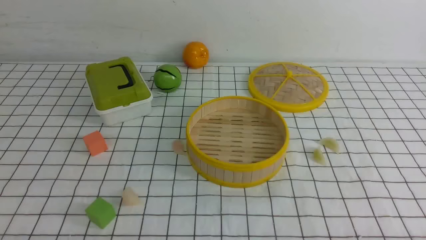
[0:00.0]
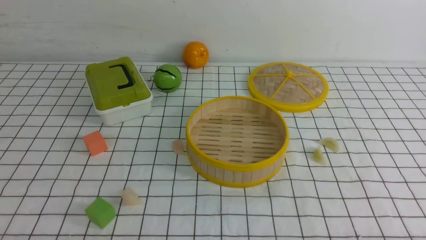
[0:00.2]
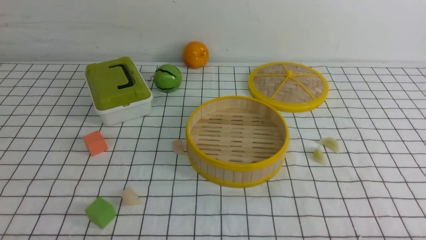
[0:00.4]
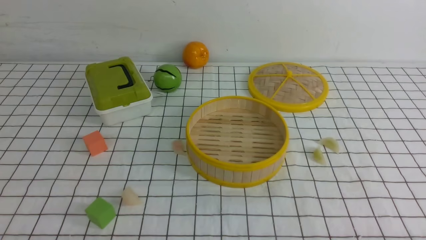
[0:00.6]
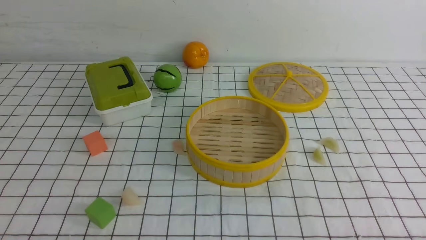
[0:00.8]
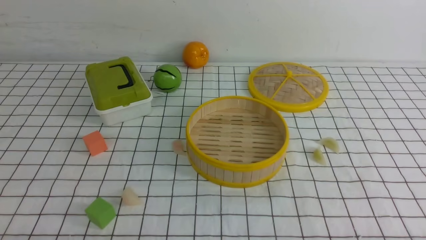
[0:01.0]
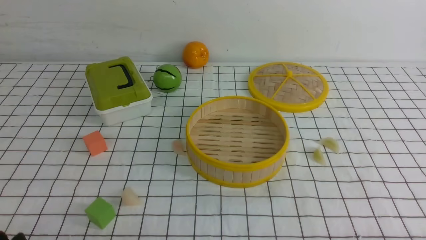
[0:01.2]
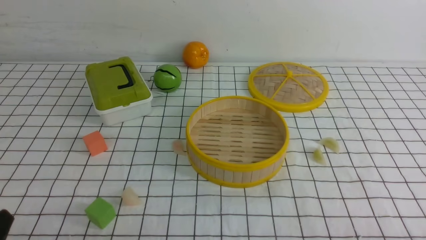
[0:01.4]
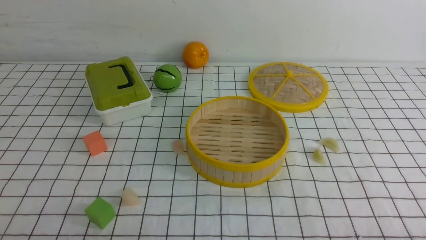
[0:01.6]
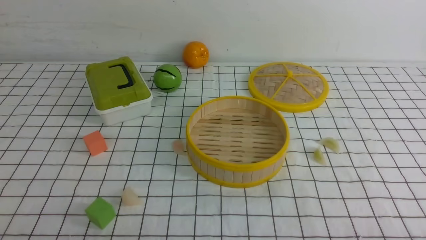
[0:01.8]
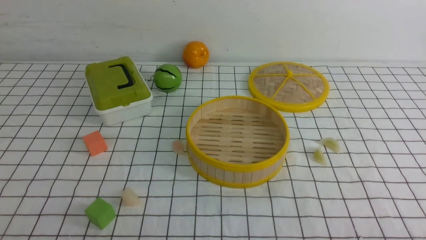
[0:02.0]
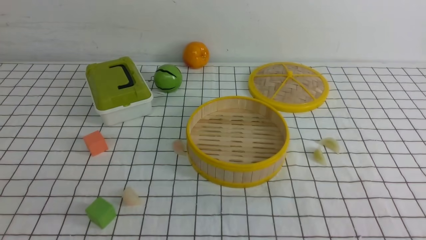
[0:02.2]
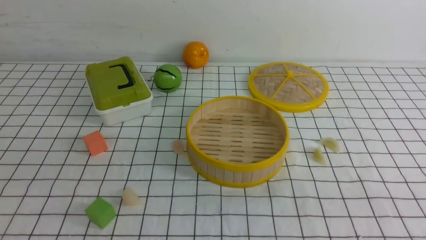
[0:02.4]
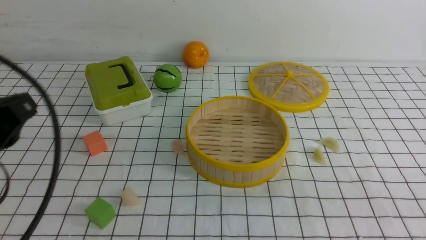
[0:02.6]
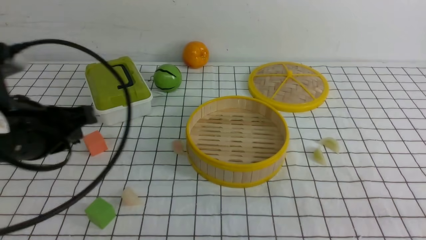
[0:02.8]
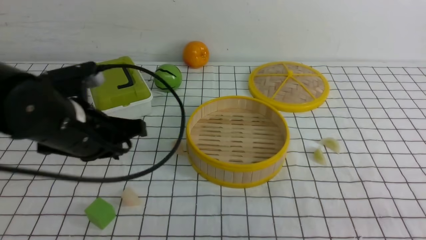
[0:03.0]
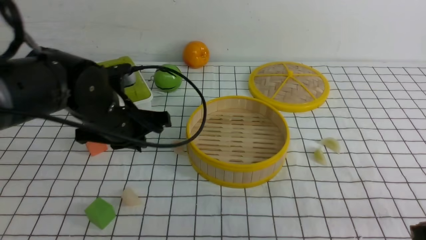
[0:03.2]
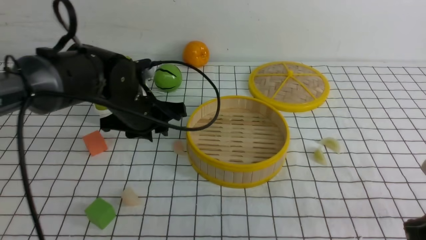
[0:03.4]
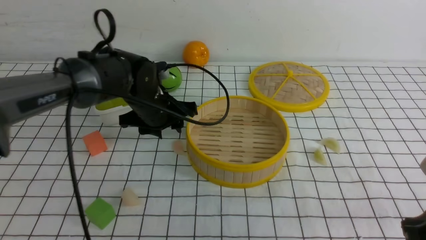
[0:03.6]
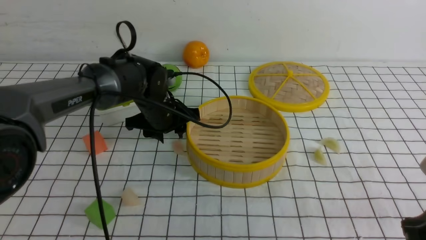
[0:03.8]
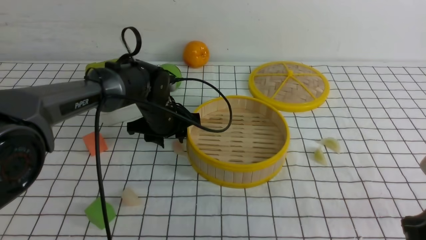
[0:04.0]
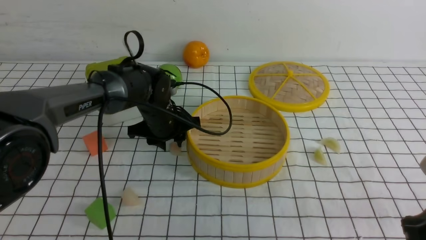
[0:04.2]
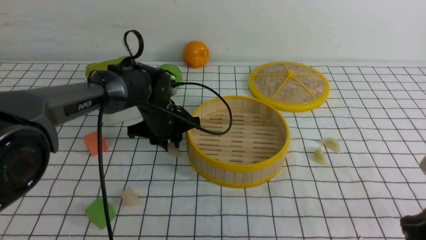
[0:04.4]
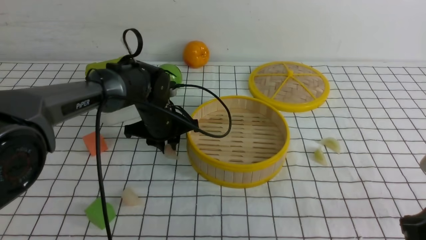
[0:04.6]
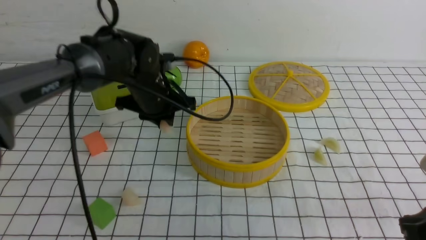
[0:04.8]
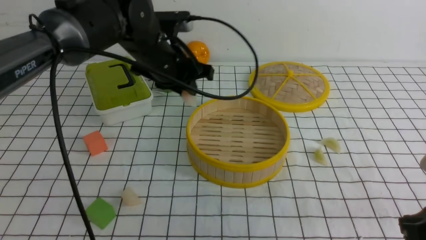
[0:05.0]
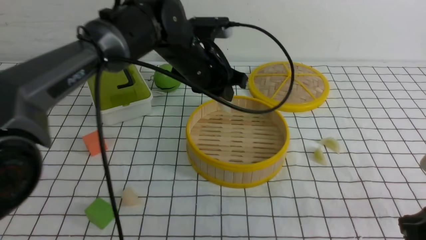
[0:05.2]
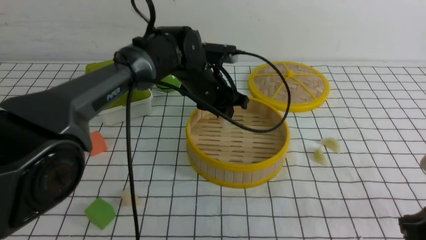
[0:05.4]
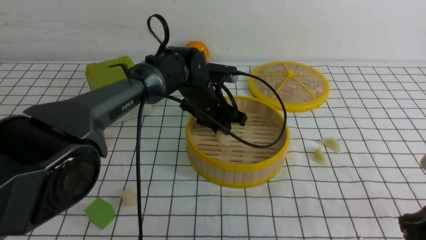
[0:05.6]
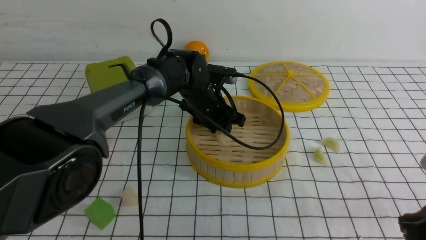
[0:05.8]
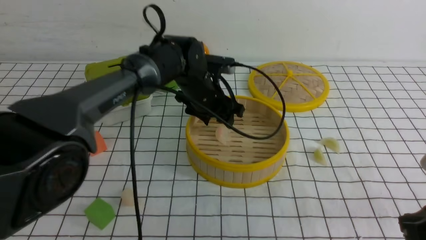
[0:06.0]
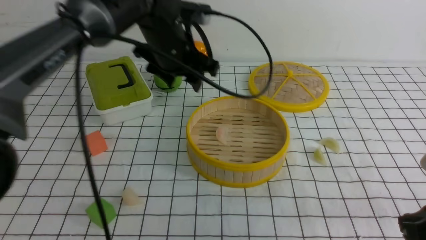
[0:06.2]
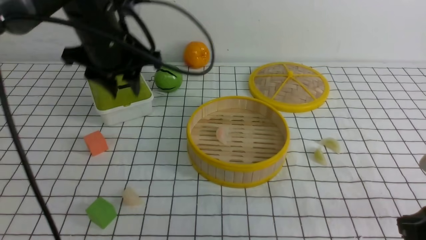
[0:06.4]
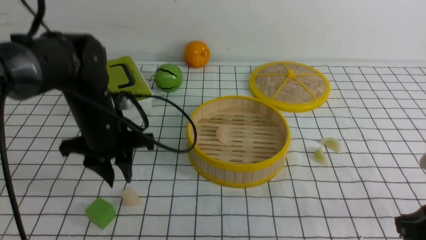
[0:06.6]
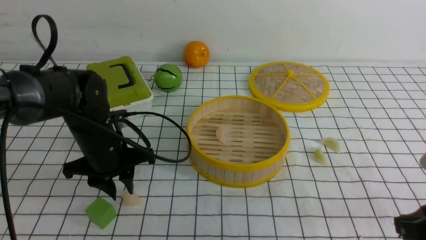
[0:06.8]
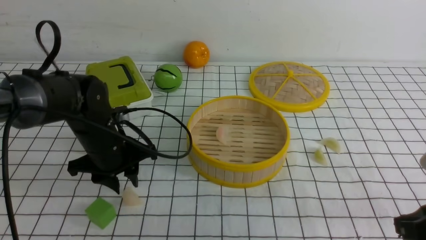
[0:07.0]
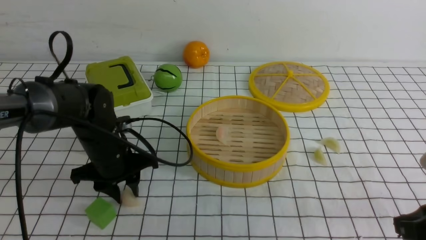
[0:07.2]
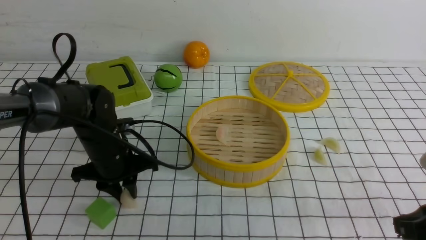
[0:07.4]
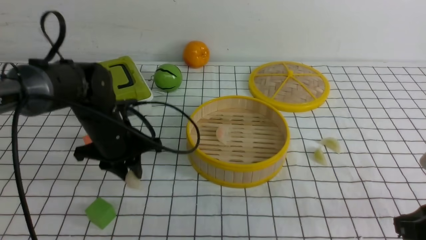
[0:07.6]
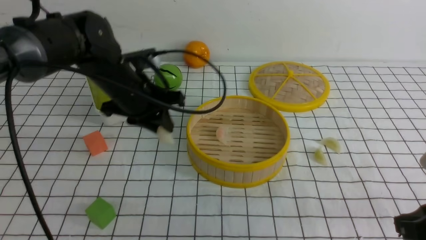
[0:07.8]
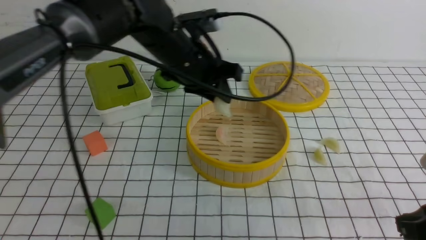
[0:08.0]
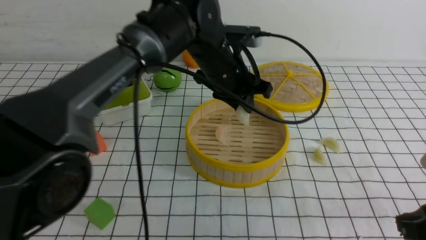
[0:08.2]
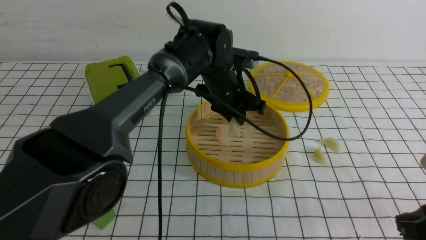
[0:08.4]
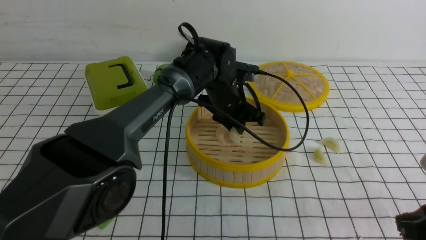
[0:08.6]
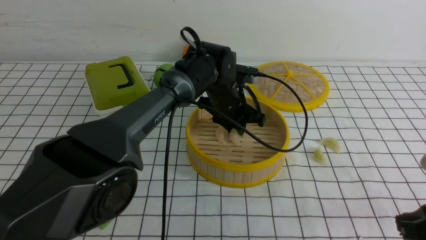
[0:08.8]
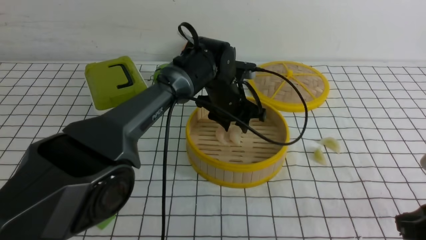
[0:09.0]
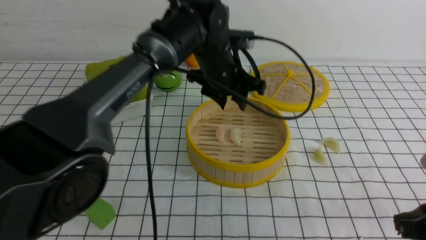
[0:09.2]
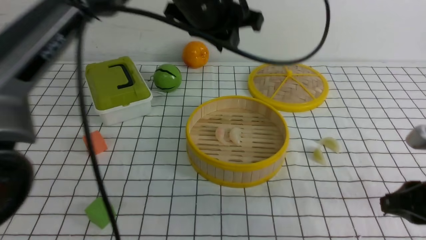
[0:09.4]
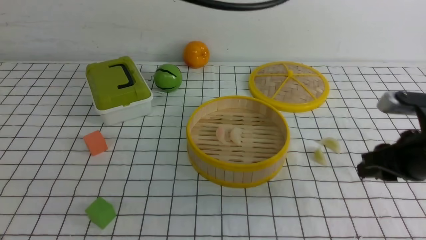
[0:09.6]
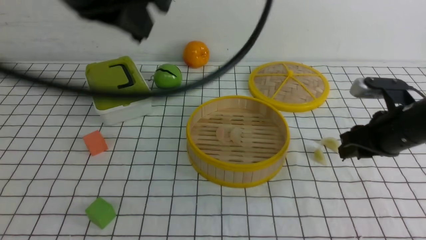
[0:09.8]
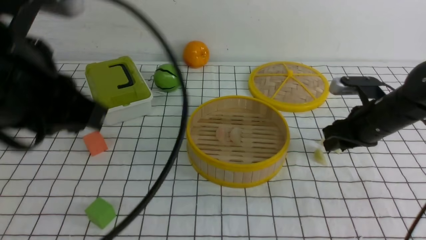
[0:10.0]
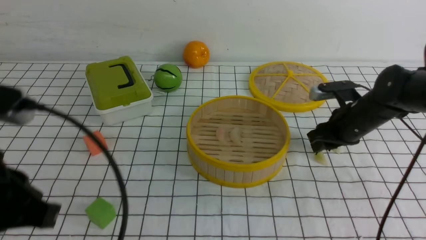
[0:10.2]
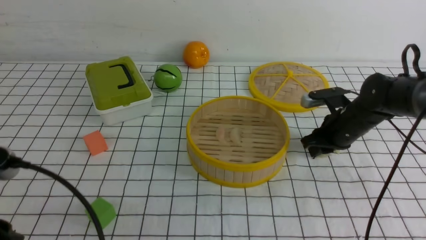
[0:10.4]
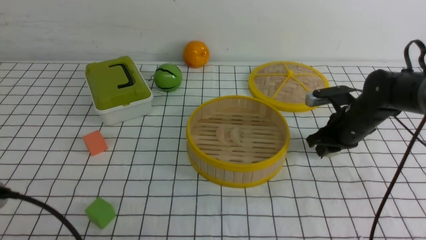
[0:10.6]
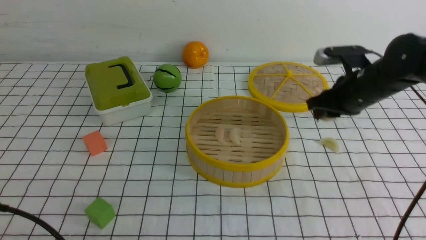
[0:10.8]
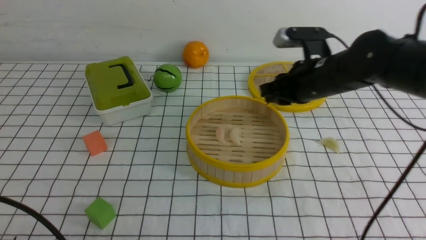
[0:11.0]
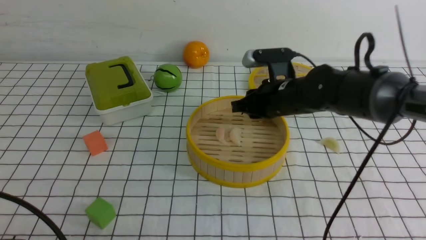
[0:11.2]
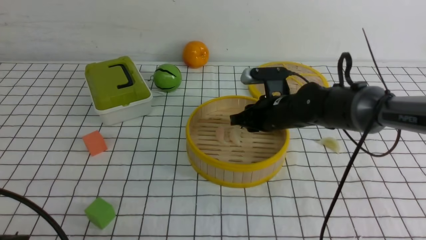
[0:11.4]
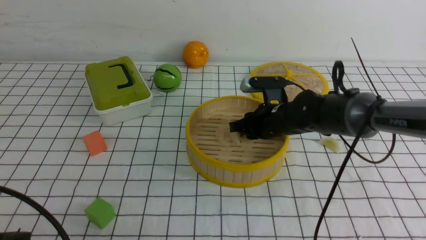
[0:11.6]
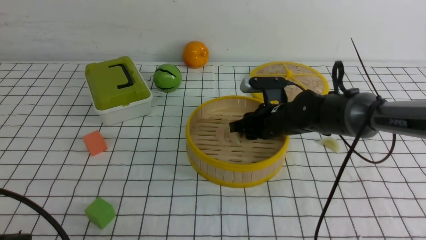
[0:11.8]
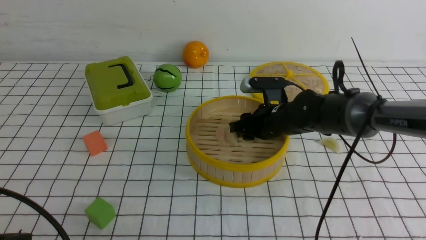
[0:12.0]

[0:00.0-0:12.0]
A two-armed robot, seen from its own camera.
Task of the whole recording: put the dumplings into the steamer on the table with the white tablecloth.
Step, 0:00.0 to 0:04.8: use the left arm to grab a dumpling.
Step, 0:05.0 to 0:06.2: use the left arm to put the dumpling into the steamer.
Step, 0:06.6 to 0:07.8: use the left arm to grab a dumpling.
Step, 0:08.0 to 0:09.2: use the left arm to put the dumpling into the steamer.
Step, 0:09.4 to 0:11.0: use the right arm to grab a dumpling.
0:01.6 to 0:03.0: The left gripper heads forward, covering some 25 cm, and closes, while the right gripper moves forward, roughly 10 cm, and closes.
0:03.0 to 0:04.4: The left gripper is displaced forward, downward and to the right by roughly 20 cm, and opens.
0:04.4 to 0:06.0: The left gripper goes up and down, approximately 10 cm each way, reversing 2 times, and opens up.
0:06.0 to 0:07.6: The left gripper goes up and down, approximately 15 cm each way, reversing 2 times, and closes.
0:07.6 to 0:09.0: The left gripper is displaced to the right and forward by some 20 cm, and opens.
0:09.0 to 0:10.4: The right gripper moves forward, roughly 25 cm. Meanwhile the left gripper is displaced backward and to the left by about 40 cm, and closes its fingers.
0:10.4 to 0:12.0: The right gripper travels to the left by roughly 15 cm.

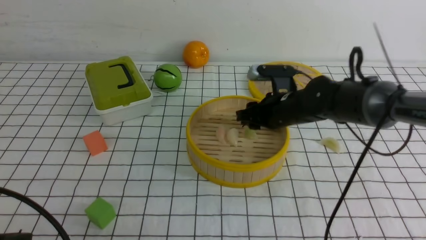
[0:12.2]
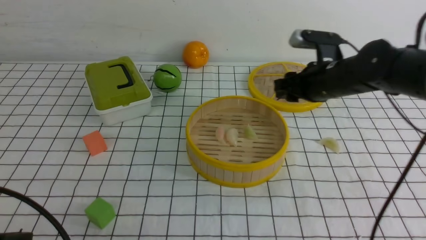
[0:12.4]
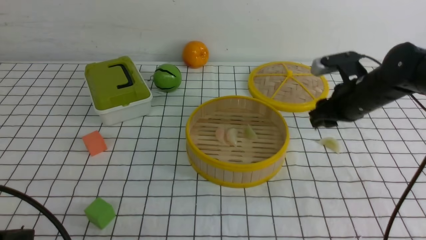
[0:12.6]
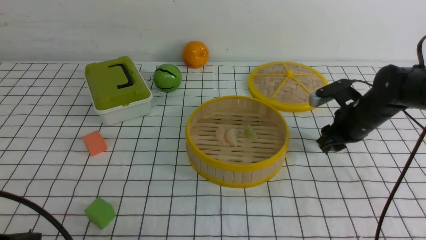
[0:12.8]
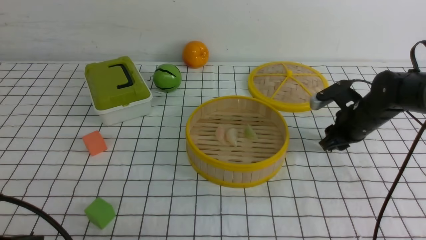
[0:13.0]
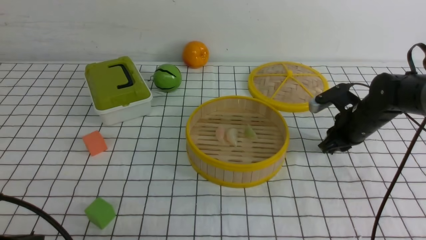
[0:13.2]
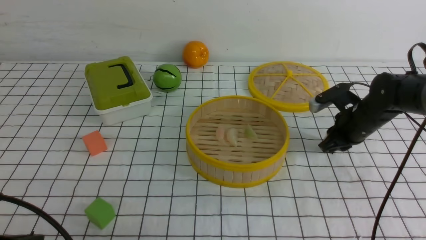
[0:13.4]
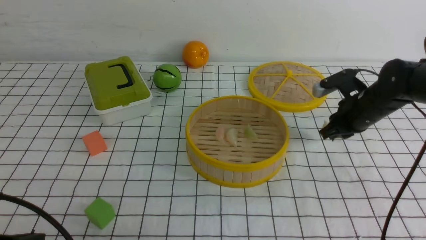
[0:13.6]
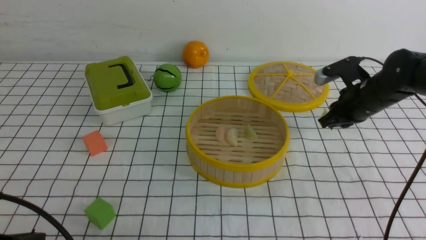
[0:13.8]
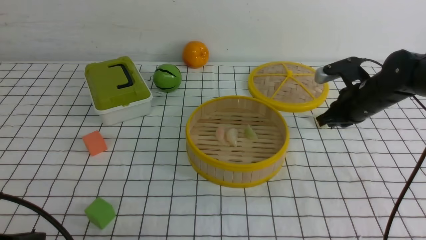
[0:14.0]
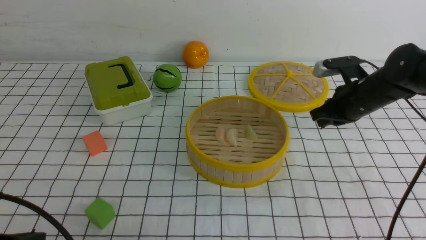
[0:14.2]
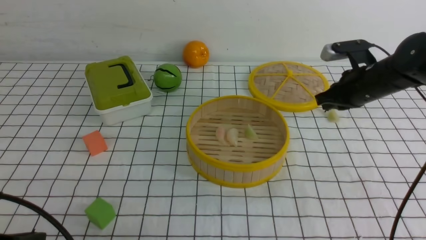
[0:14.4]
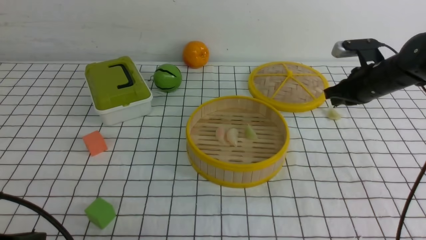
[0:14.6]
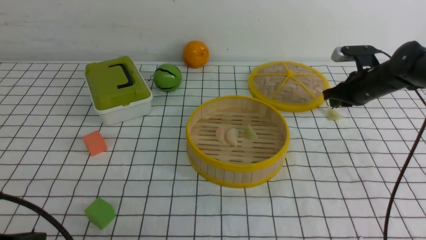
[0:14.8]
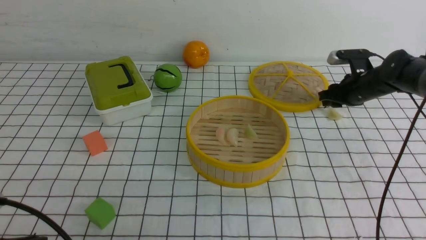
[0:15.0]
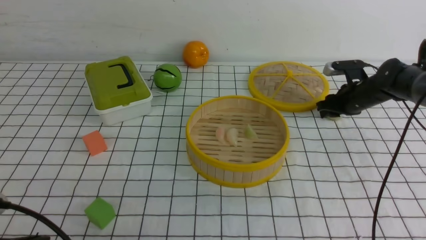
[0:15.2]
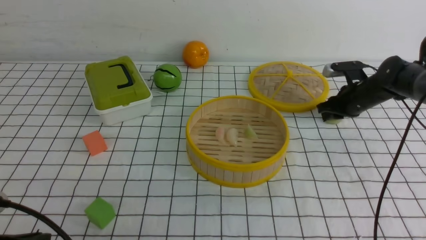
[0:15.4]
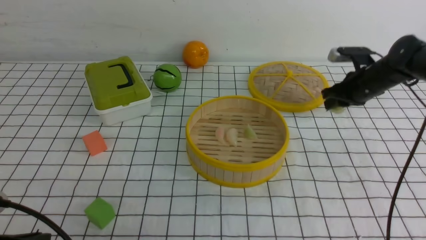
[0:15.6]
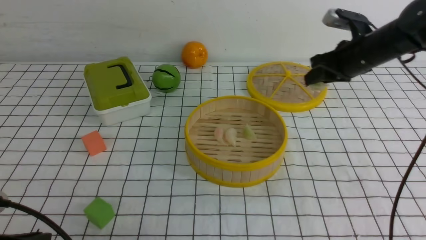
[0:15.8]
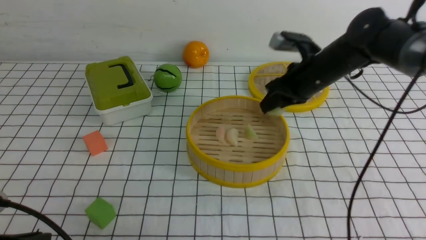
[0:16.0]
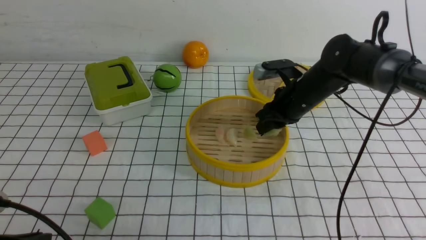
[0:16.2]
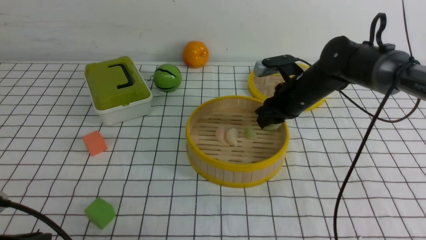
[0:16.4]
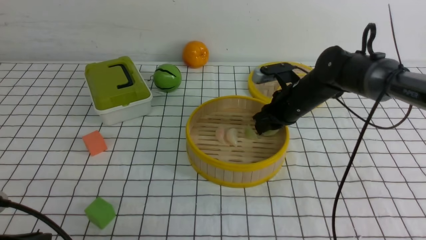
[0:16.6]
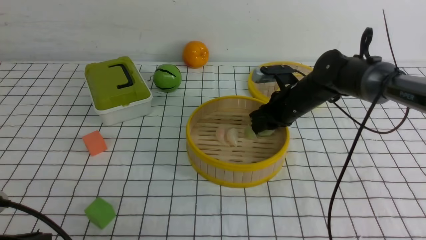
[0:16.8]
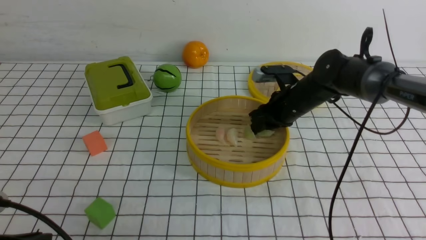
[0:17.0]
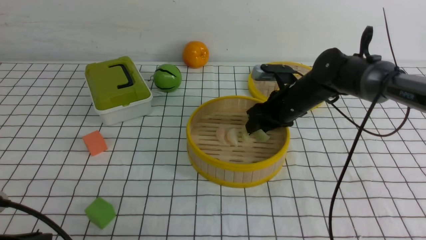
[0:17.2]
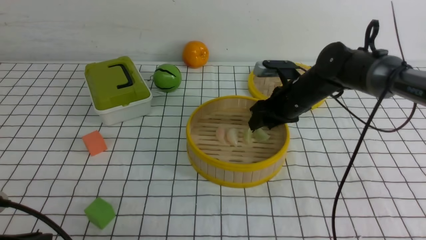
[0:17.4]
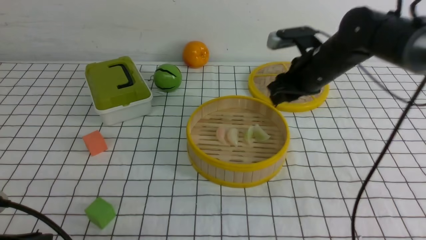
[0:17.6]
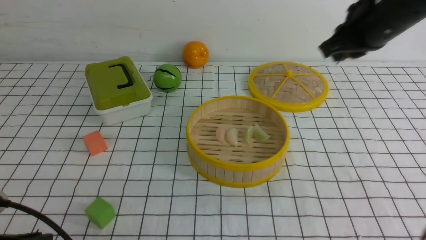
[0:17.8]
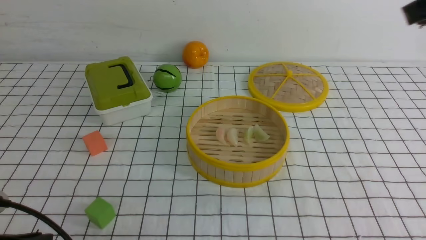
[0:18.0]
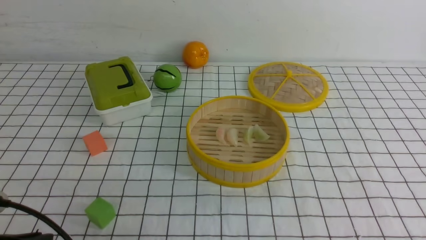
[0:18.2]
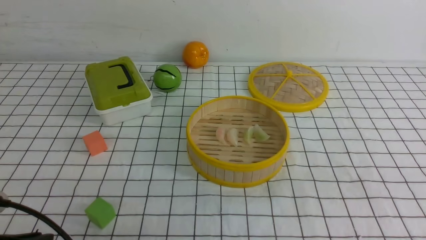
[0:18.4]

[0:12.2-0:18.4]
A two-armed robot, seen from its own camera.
Task of the whole recording: put the dumplings into the steamer on the table with the white tablecloth.
Step, 0:12.4 to 0:15.8: use the right arm to grab a dumpling.
Step, 0:16.0 to 0:17.4: use the right arm to put the dumpling into the steamer.
0:12.2 to 0:13.8: The right gripper heads to the right, covering some 10 cm, and closes.
0:13.8 to 0:15.4: The right gripper travels forward by approximately 10 cm.
0:15.4 to 0:16.8: The right gripper travels to the left by approximately 15 cm.
0:16.8 to 0:18.4: The right gripper moves backward and upward, some 40 cm, and closes up.
